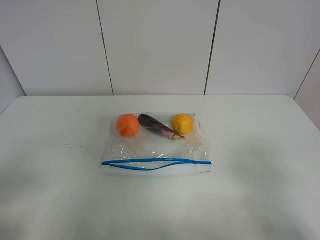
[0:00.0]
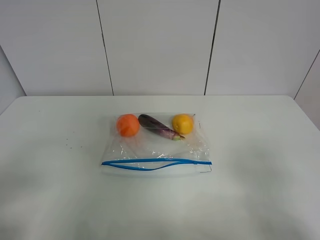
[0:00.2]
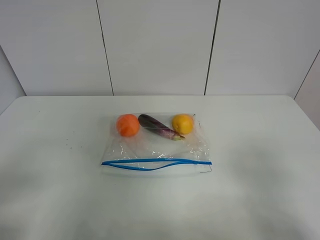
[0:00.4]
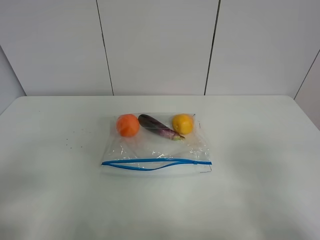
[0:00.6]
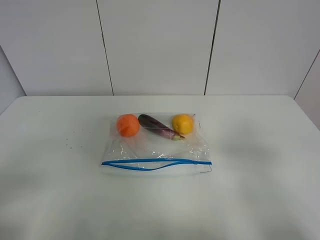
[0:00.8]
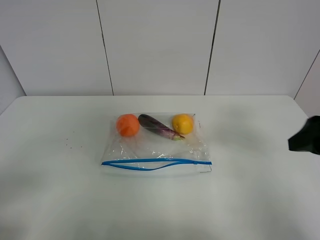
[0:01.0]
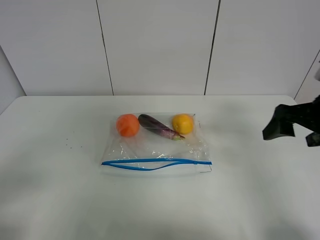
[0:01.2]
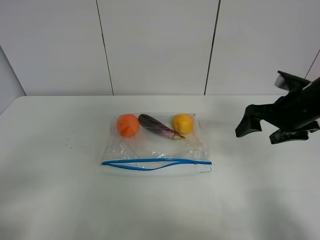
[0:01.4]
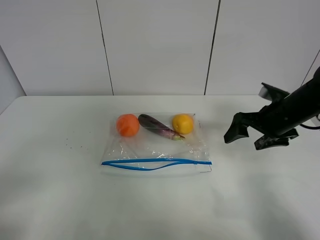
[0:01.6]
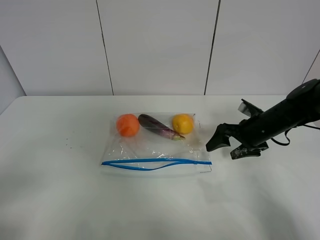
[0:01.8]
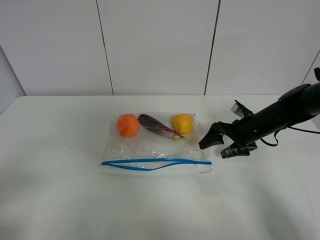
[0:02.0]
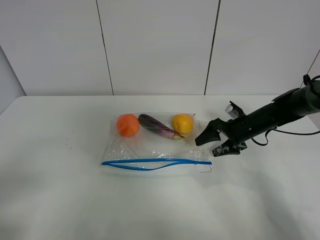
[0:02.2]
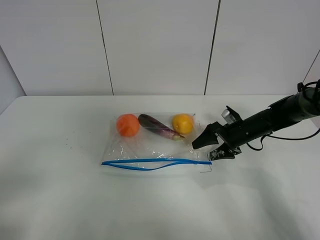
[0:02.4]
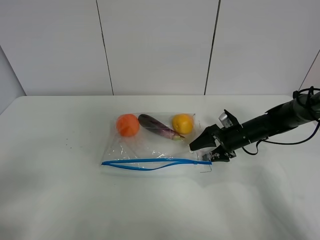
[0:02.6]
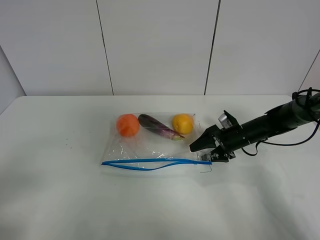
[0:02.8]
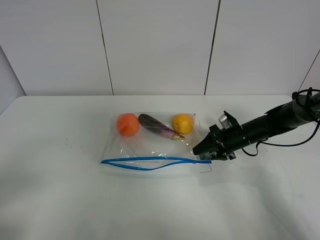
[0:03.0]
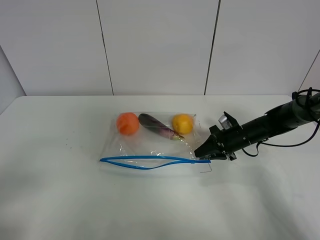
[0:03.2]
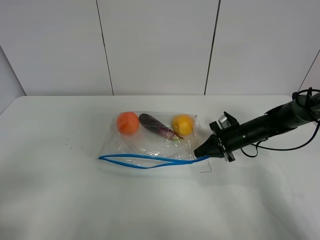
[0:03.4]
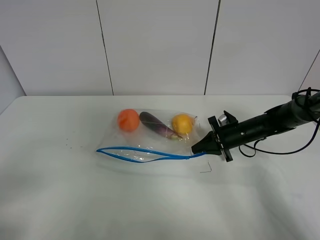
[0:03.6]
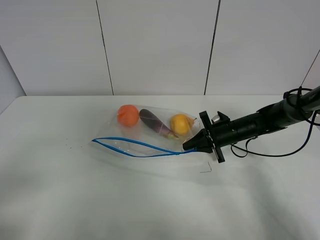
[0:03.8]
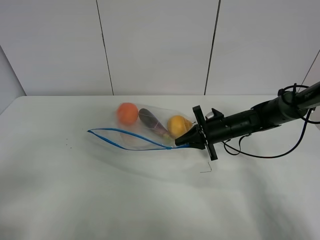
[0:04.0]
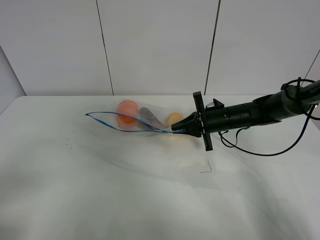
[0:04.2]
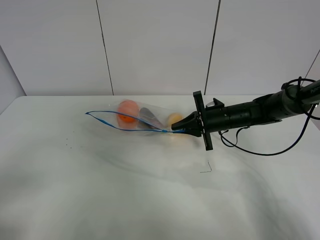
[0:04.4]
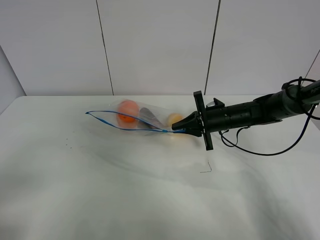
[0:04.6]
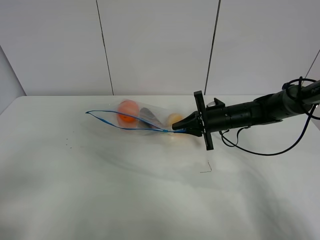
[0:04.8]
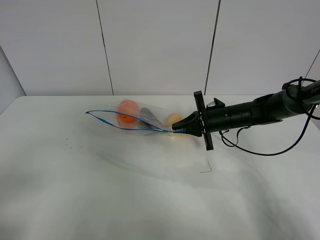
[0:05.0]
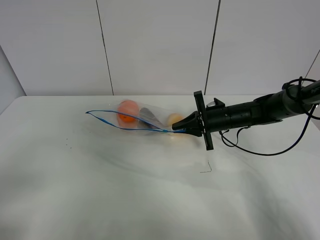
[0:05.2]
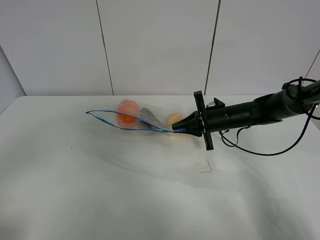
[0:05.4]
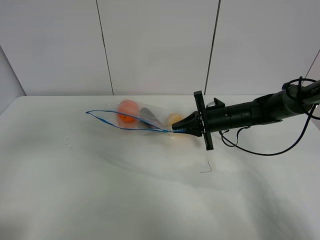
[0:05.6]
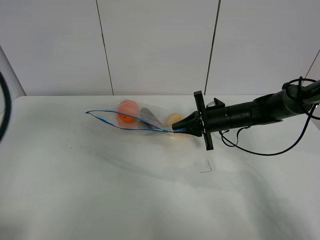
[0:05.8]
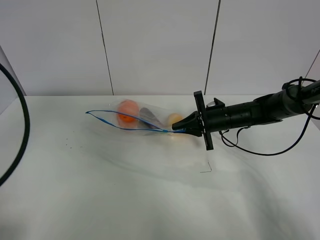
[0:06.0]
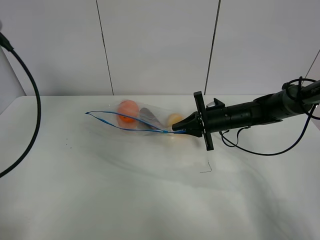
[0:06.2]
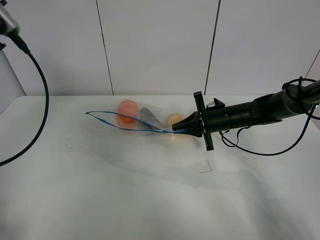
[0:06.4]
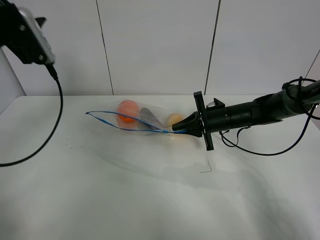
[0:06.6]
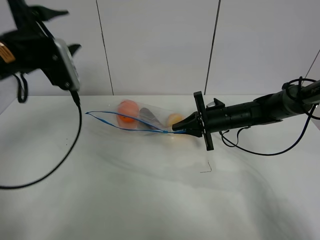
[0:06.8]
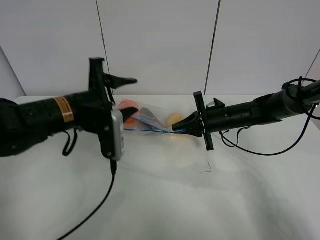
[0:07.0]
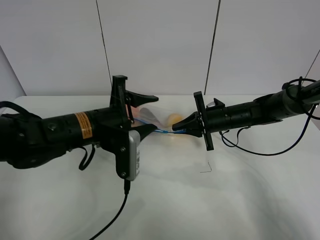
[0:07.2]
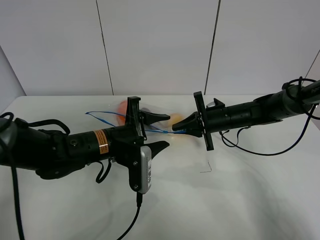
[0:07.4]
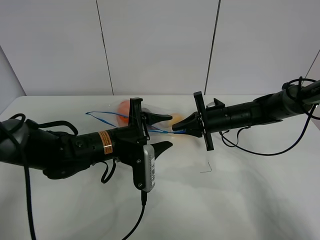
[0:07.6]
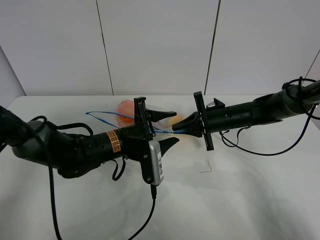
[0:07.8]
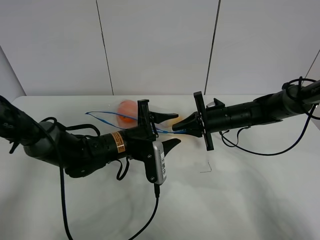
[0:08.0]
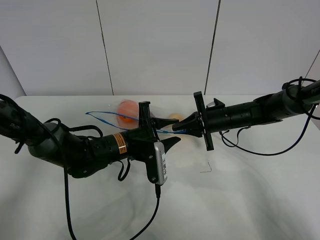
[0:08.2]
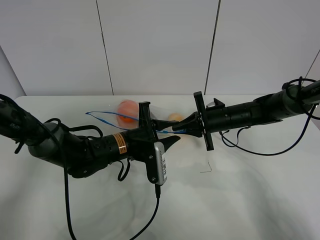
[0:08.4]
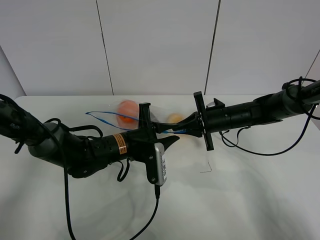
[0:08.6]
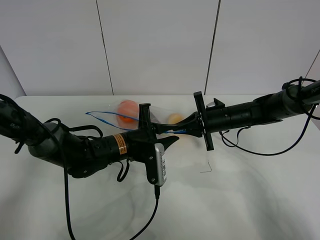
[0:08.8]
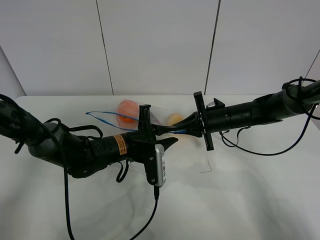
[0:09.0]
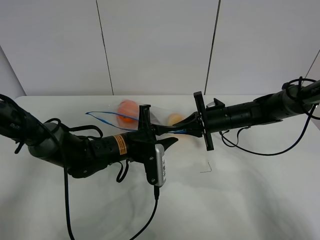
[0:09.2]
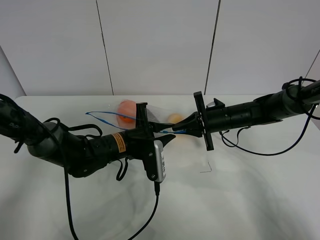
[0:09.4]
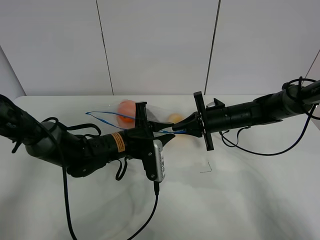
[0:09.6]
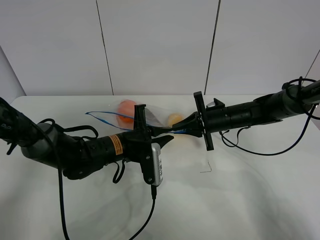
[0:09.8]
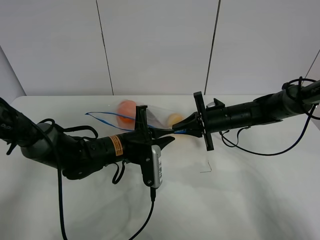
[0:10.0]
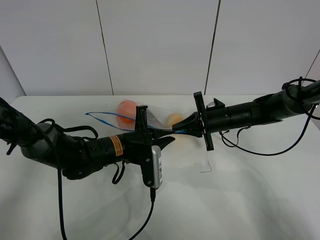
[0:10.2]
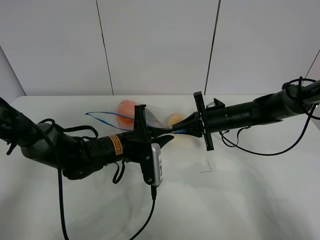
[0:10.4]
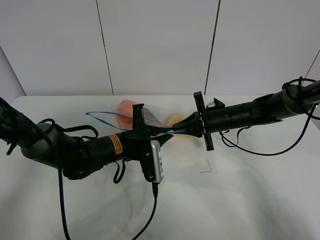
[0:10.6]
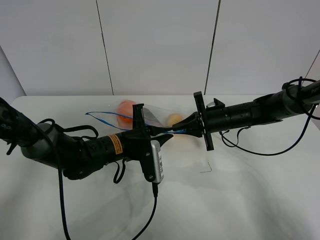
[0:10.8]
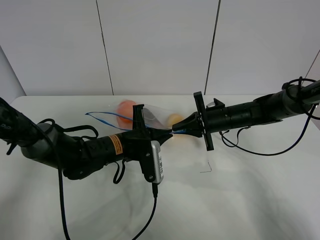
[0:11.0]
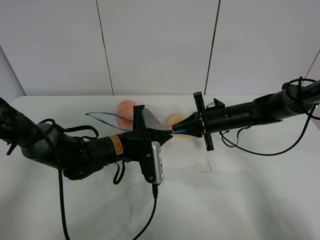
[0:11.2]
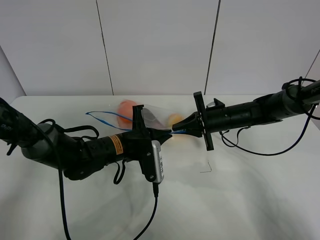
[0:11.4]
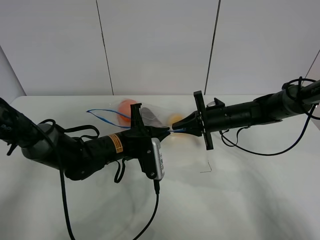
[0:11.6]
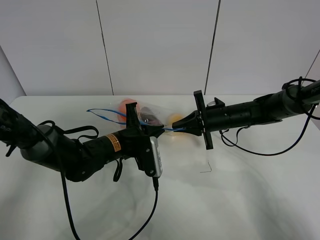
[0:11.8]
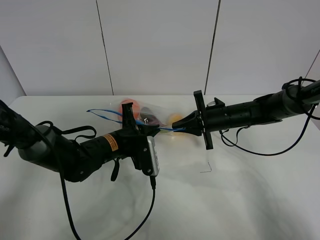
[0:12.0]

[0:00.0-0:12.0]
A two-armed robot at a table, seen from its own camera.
Step, 0:00.0 to 0:03.2: Grasp the fruit bag with right gripper.
Step, 0:03.4 to 0:04.4: Lift the fruit bag with your right gripper.
0:00.0 to 0:01.6: The right gripper goes roughly 30 cm forward.
0:01.6 to 0:03.0: The right gripper heads downward and forward, covering some 15 cm, and closes up.
0:03.0 to 0:04.4: The right gripper is displaced to the left and upward by roughly 10 cm, and closes up.
0:04.4 to 0:06.0: The left gripper shifts roughly 20 cm forward and upward.
0:06.0 to 0:07.6: The left gripper is displaced to the right and downward by approximately 30 cm.
0:07.6 to 0:09.0: The left gripper closes.
0:09.0 to 0:10.4: Neither gripper changes place.
0:10.4 to 0:12.0: There are only small adjustments of the grippers.

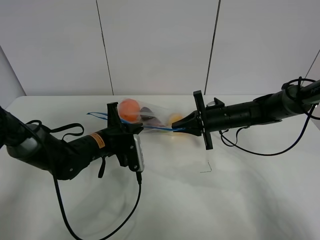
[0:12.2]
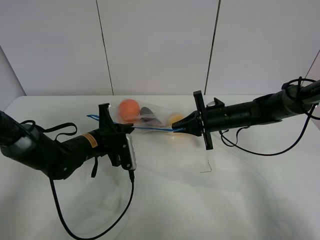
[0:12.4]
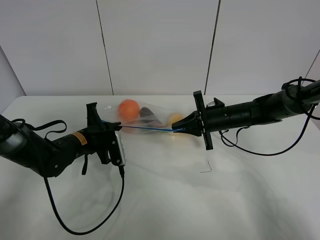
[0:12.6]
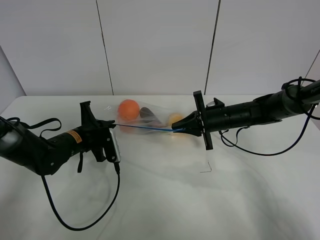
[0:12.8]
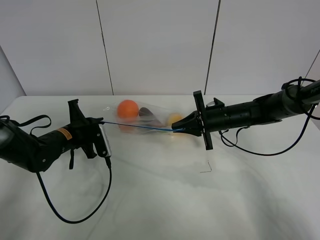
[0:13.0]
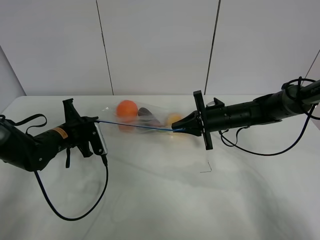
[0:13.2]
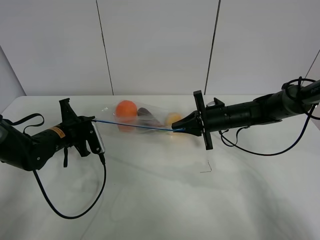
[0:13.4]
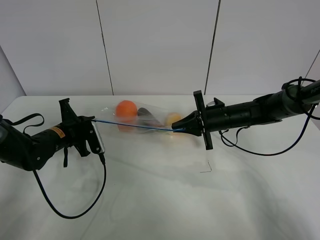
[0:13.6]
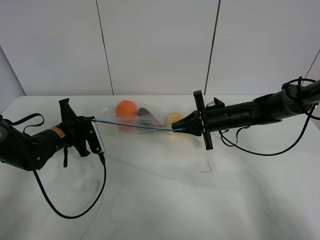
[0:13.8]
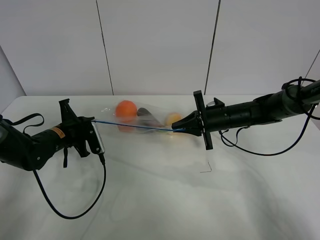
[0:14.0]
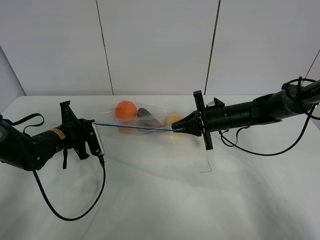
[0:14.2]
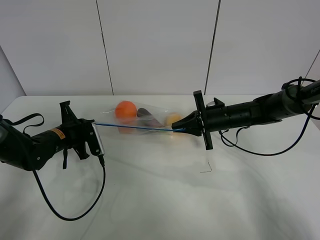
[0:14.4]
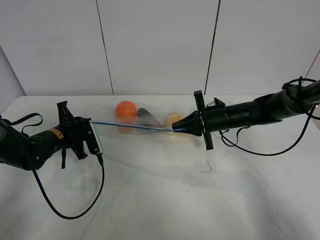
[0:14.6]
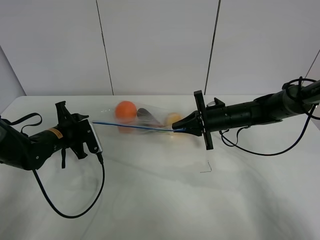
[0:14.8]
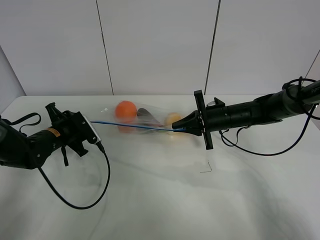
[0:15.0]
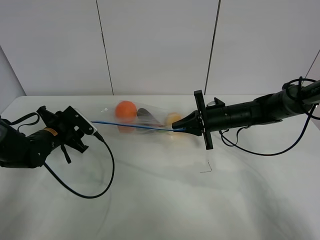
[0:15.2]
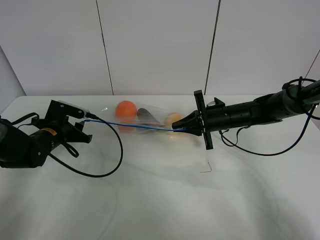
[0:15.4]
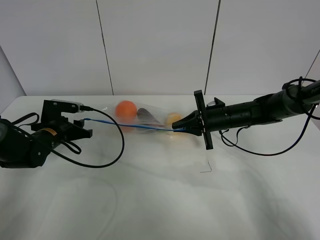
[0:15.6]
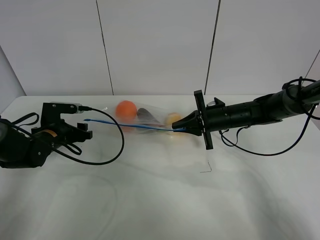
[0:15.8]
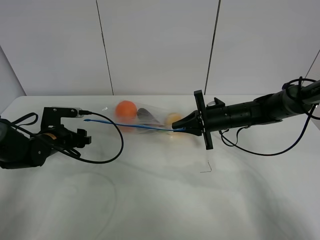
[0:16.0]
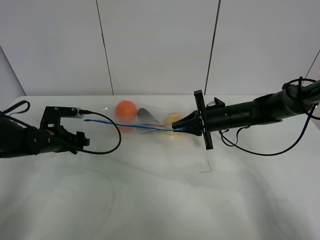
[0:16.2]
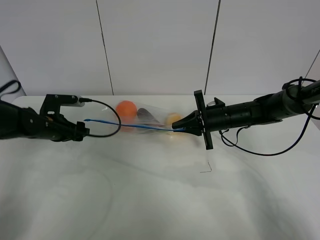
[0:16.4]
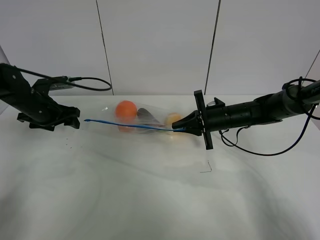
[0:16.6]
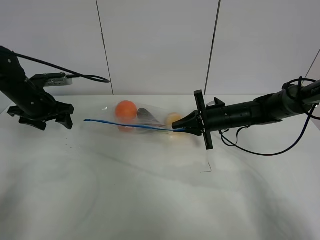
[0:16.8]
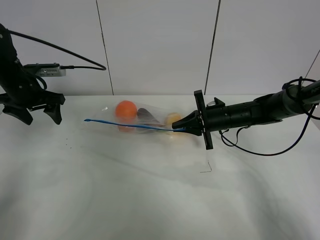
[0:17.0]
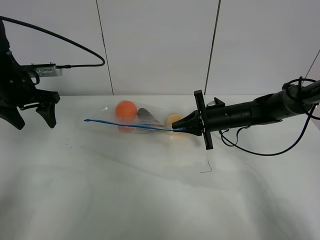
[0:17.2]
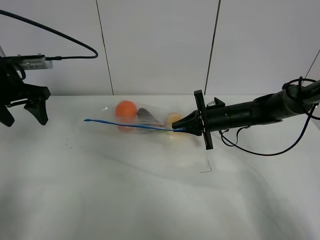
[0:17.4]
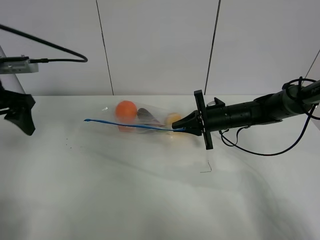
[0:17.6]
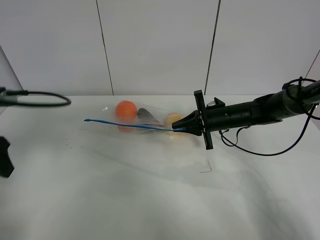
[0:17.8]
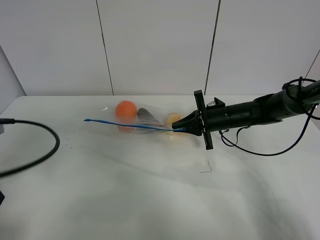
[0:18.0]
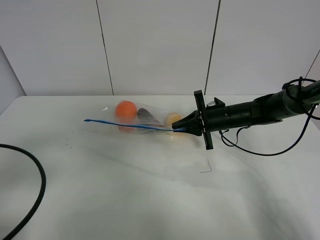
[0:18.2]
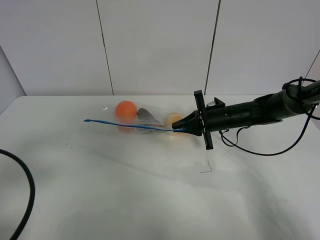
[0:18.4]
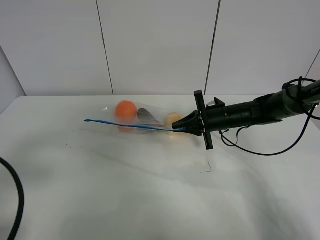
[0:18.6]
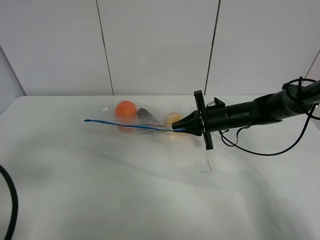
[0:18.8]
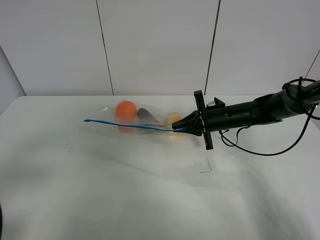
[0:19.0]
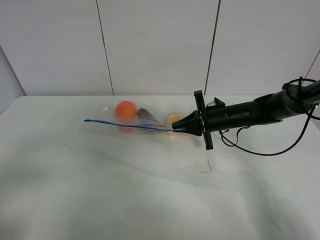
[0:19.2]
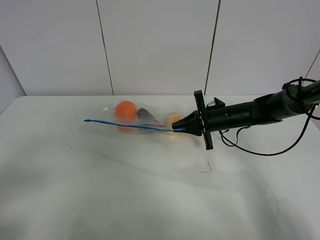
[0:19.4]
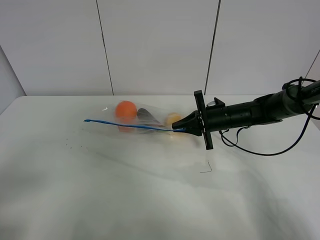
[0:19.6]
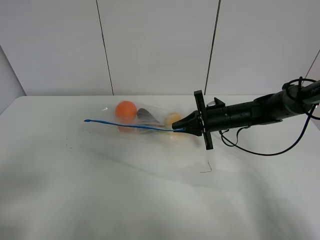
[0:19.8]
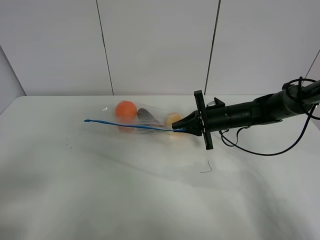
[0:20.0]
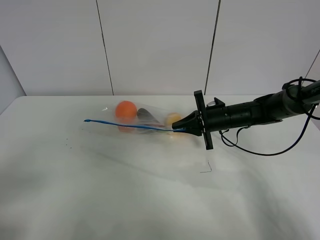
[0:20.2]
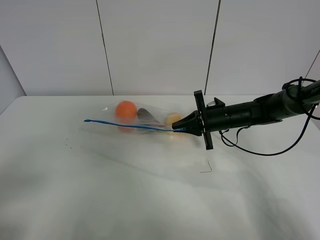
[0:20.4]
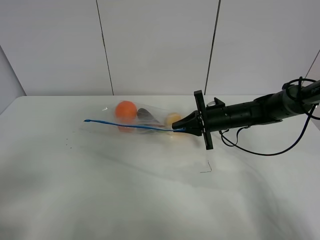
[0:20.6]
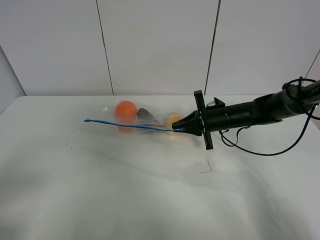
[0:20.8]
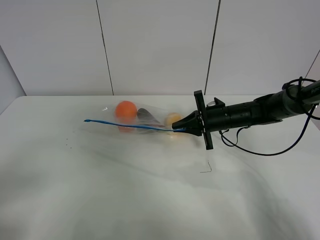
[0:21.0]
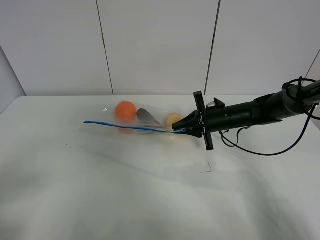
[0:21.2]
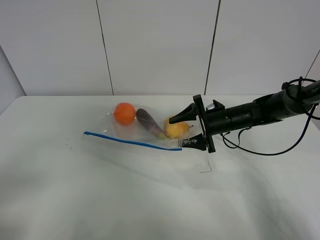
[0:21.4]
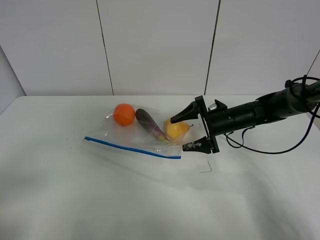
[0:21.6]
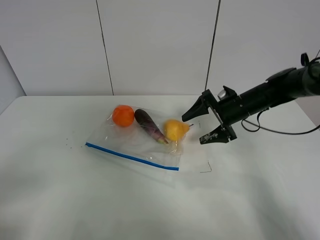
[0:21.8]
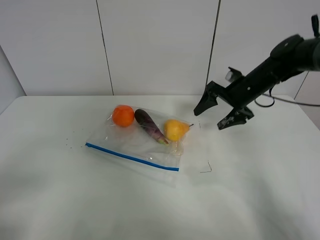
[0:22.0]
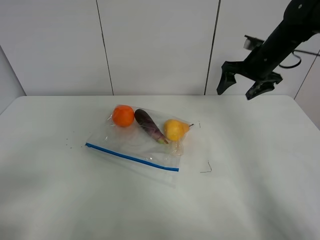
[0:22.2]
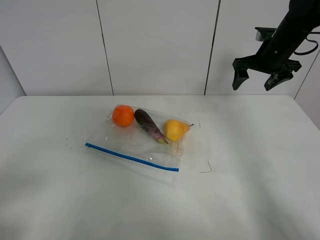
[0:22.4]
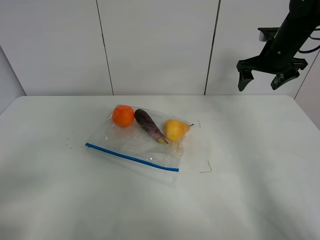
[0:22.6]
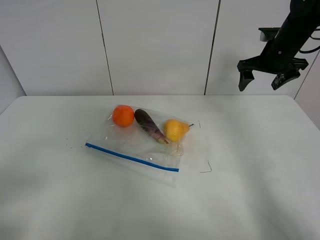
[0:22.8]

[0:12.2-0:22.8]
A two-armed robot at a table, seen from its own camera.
Step, 0:12.2 to 0:15.4: Pull the fruit bag with left gripper.
0:12.2 to 0:13.8: The left gripper shifts about 10 cm to the left.
0:13.8 to 0:15.2: The left gripper opens up.
0:15.2 to 0:16.8: The left gripper travels upward by approximately 10 cm.
0:16.8 to 0:18.2: The left gripper moves backward, some 30 cm.
0:18.2 to 0:19.8: The left gripper goes approximately 10 cm backward.
0:19.8 to 0:21.2: Both grippers stay put.
0:21.2 to 0:22.8: The right gripper travels upward and to the right by roughly 20 cm, and opens up.
